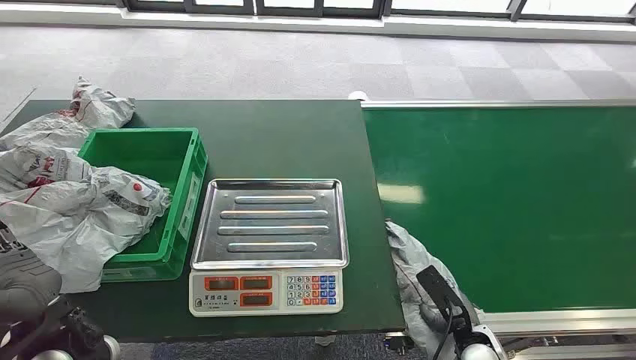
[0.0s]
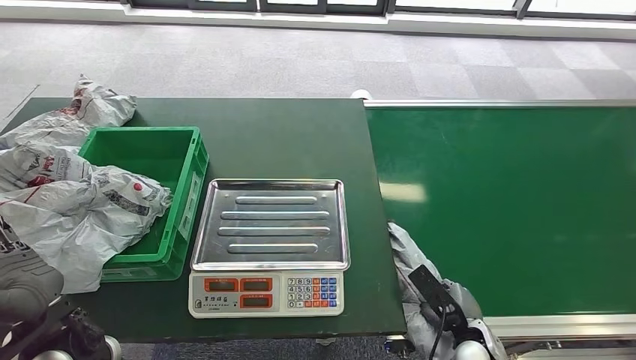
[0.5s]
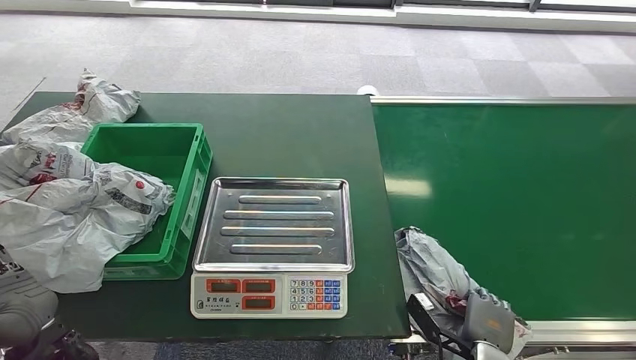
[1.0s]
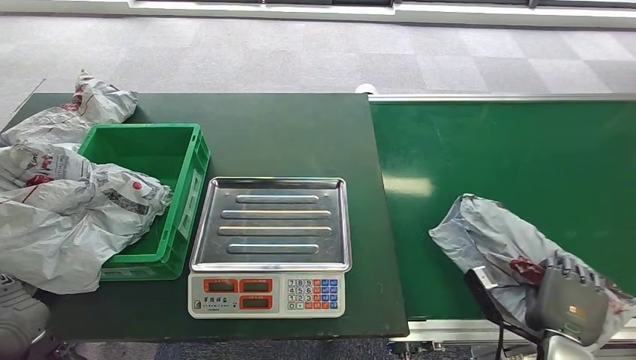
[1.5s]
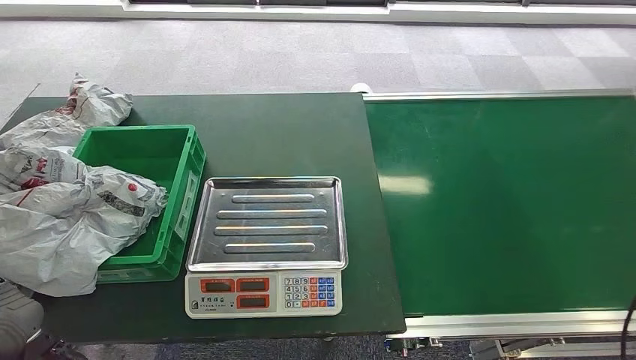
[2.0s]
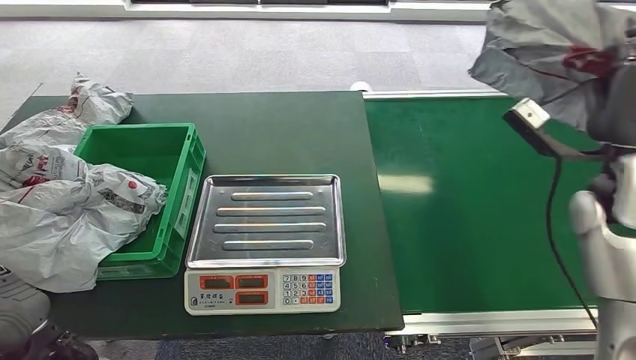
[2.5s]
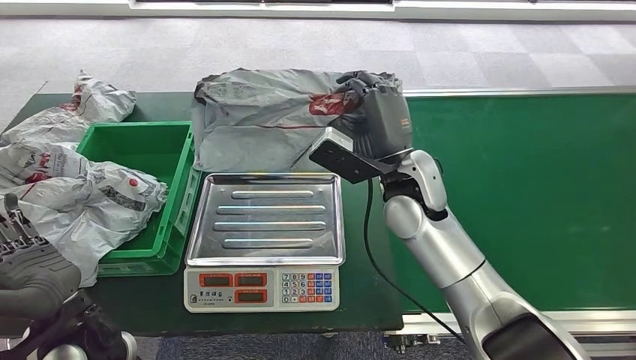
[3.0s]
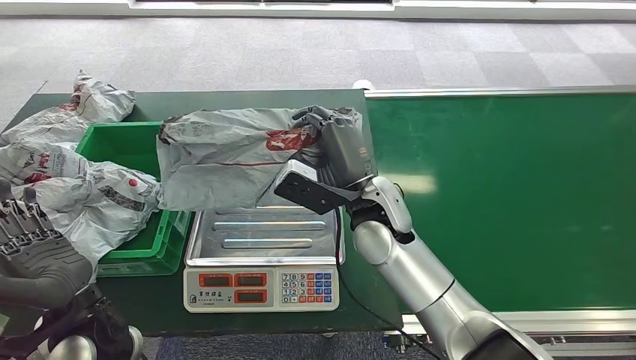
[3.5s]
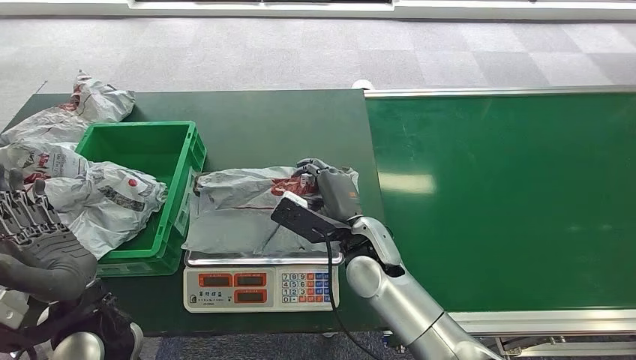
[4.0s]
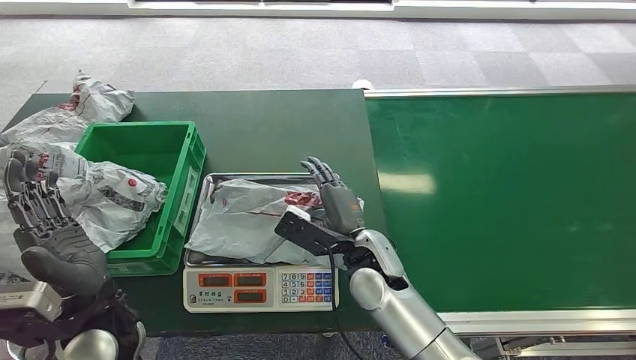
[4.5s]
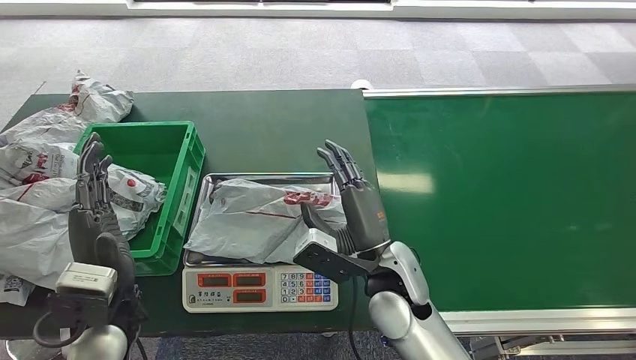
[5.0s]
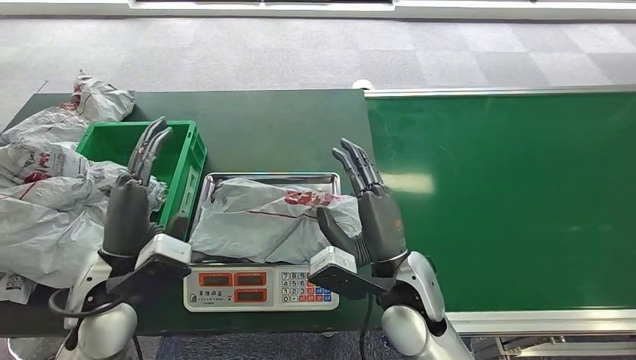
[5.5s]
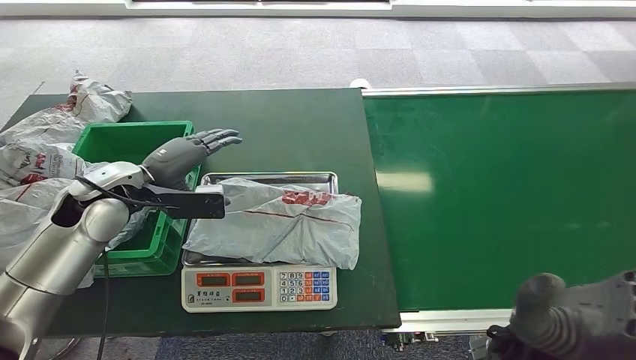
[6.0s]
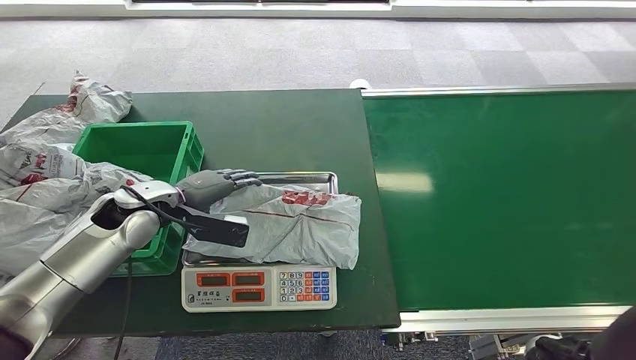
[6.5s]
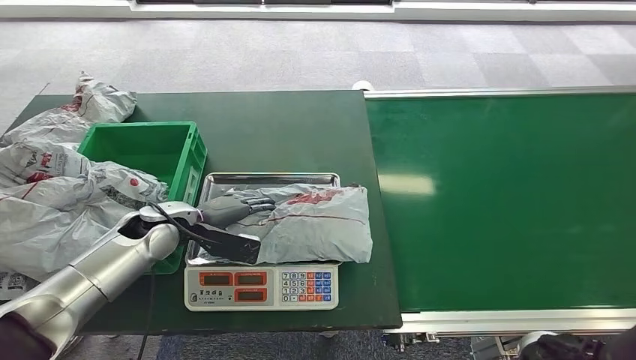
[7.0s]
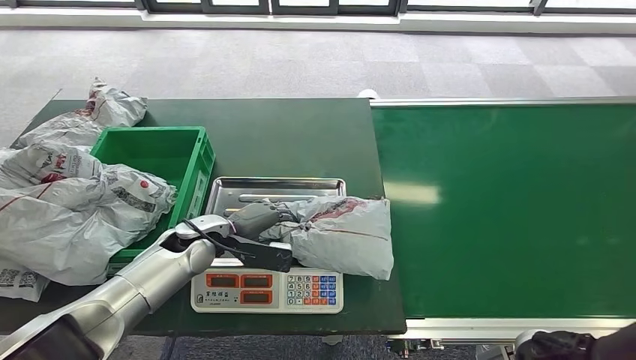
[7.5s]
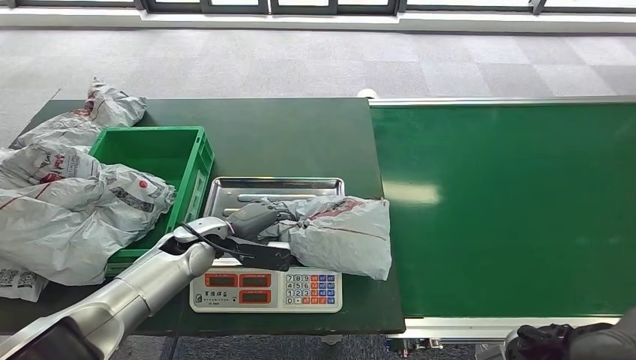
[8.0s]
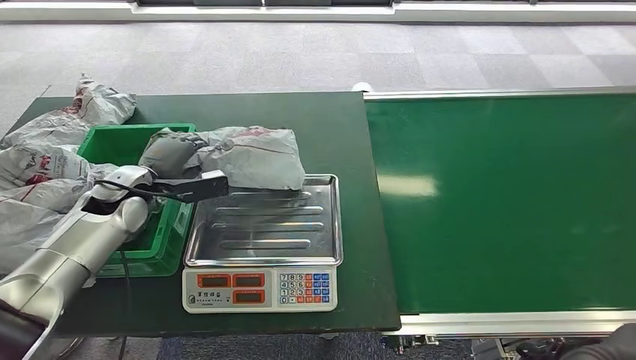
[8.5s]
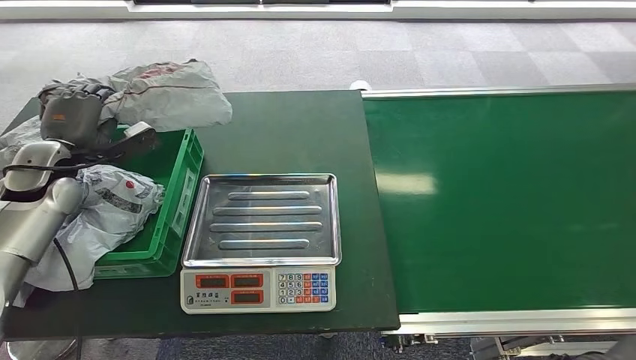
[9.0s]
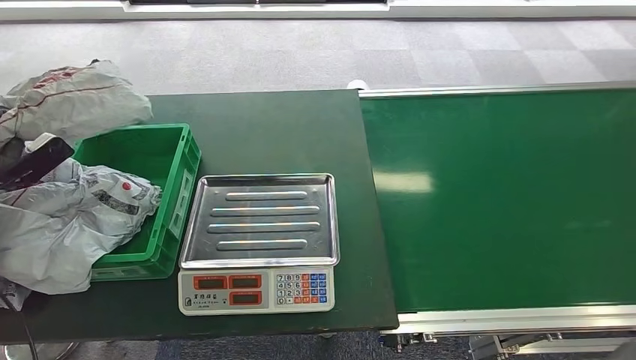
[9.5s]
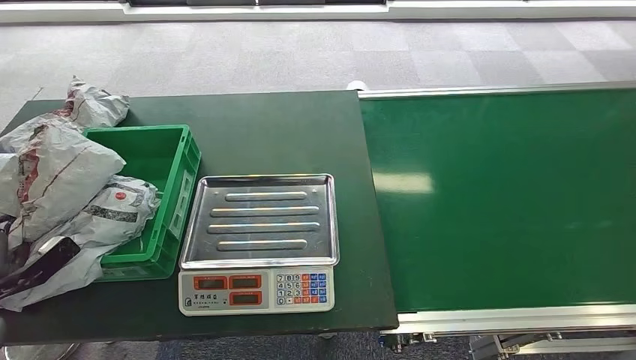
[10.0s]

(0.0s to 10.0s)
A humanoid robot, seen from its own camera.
Step, 0.0s - 1.5s: Pick up the package from the conveyor belt.
Step, 2.0s - 5.0s: Place the package onto the inbound machine.
Step, 6.0s - 8.5s: Pick up the package from the inbound machine.
Step, 9.0s - 10.0s: Place the package into the parcel locker.
